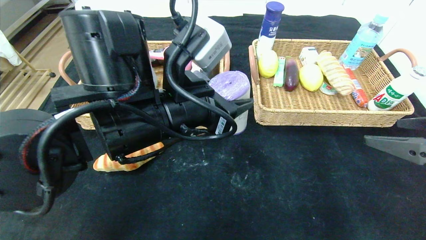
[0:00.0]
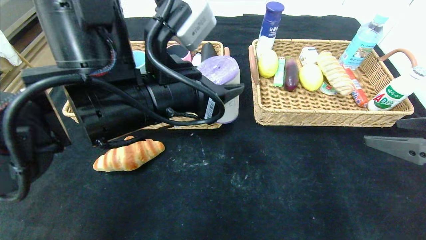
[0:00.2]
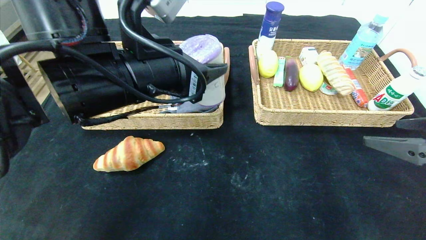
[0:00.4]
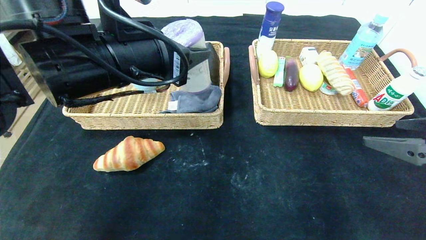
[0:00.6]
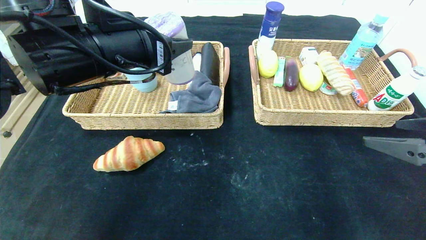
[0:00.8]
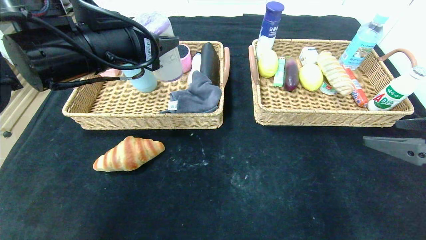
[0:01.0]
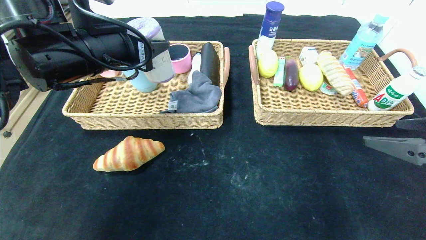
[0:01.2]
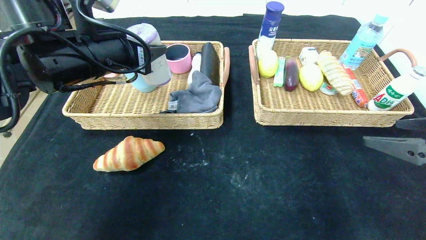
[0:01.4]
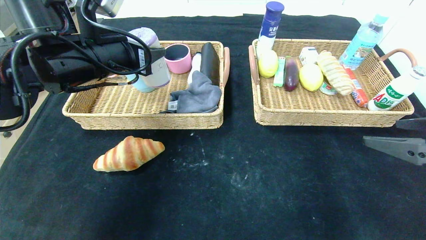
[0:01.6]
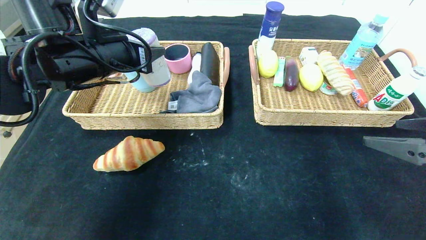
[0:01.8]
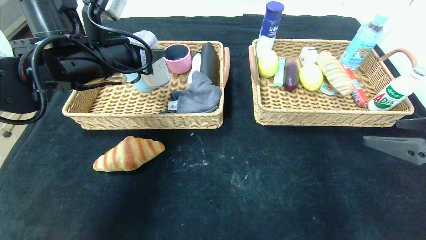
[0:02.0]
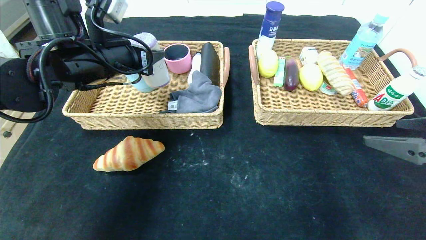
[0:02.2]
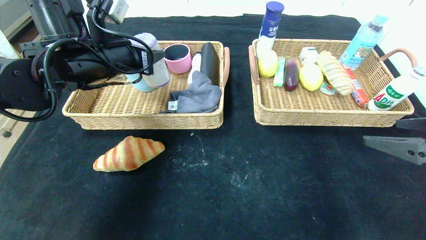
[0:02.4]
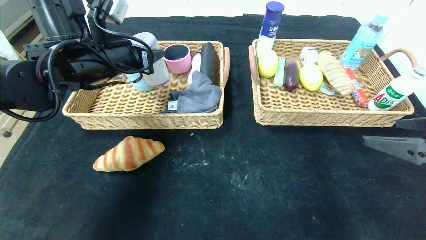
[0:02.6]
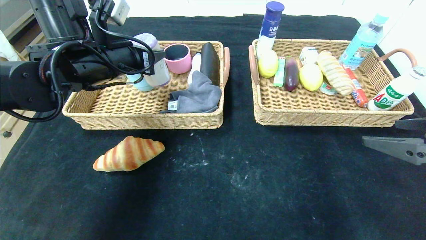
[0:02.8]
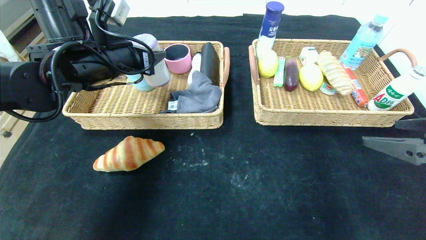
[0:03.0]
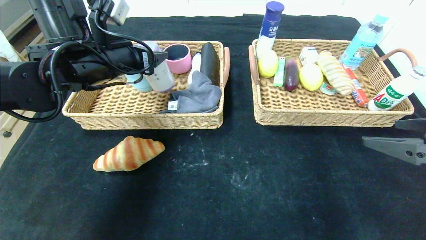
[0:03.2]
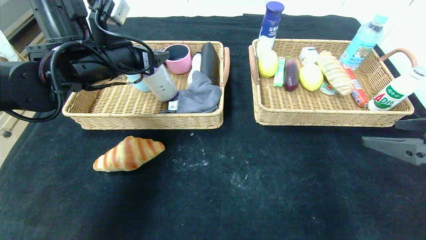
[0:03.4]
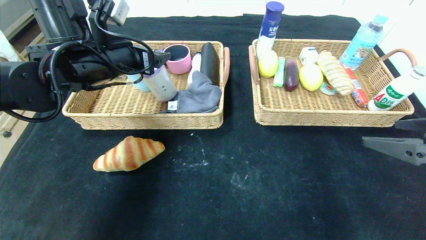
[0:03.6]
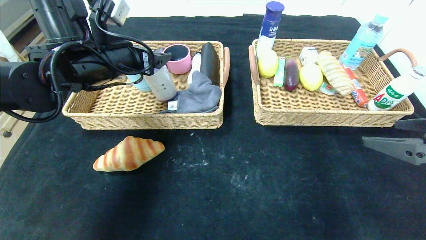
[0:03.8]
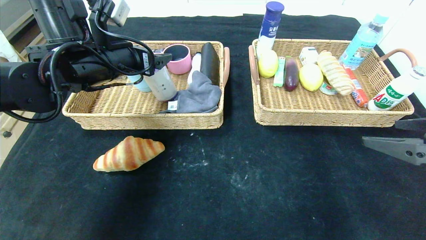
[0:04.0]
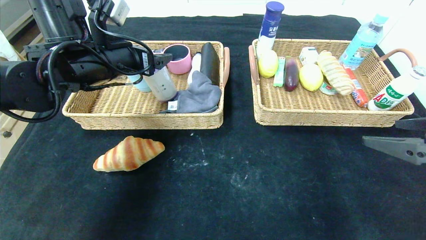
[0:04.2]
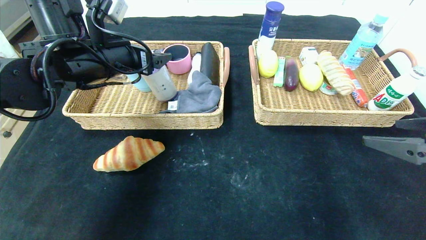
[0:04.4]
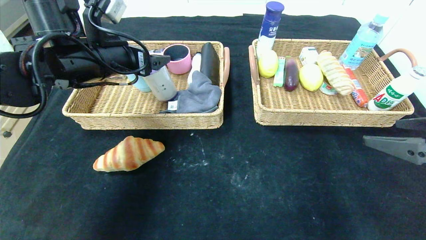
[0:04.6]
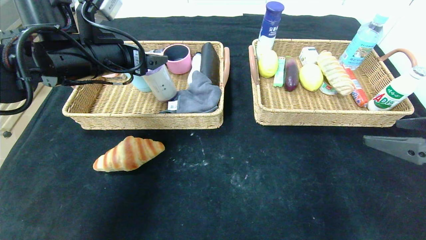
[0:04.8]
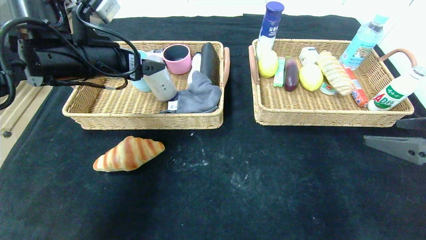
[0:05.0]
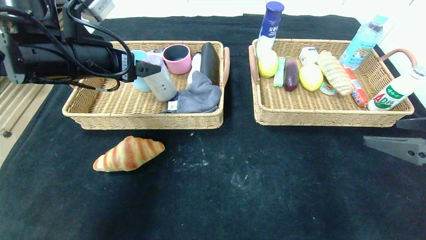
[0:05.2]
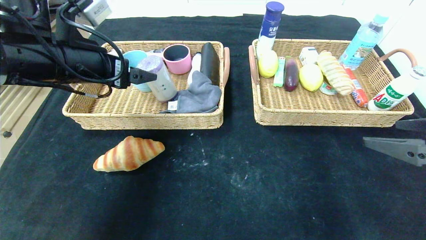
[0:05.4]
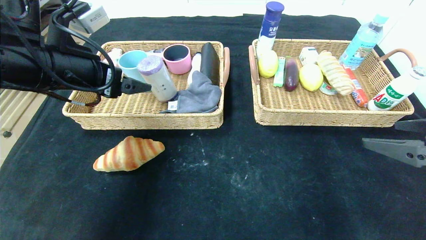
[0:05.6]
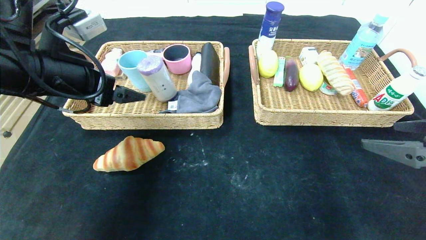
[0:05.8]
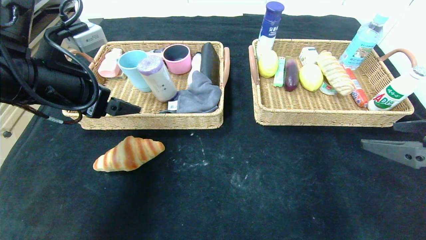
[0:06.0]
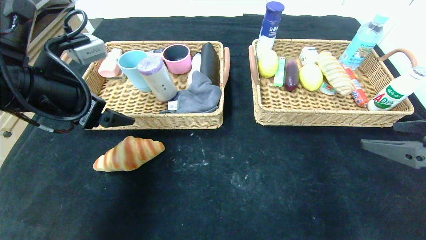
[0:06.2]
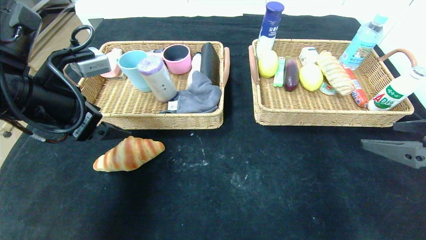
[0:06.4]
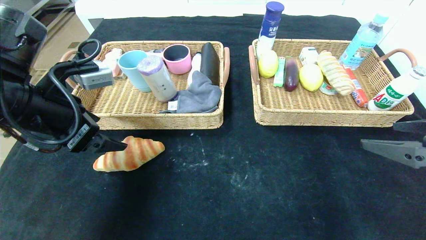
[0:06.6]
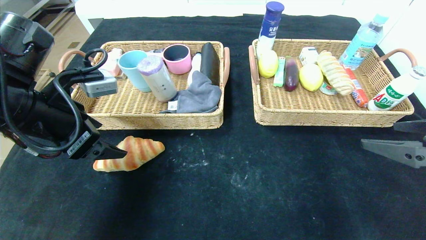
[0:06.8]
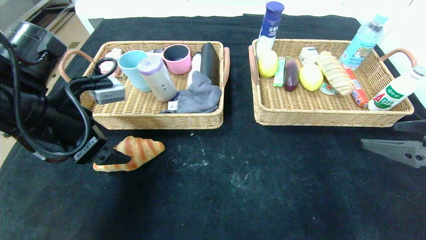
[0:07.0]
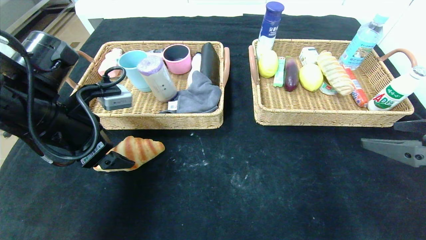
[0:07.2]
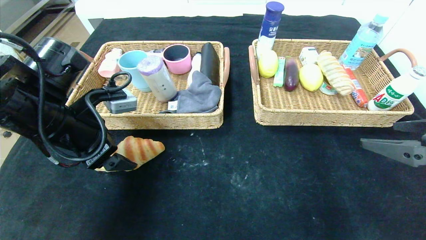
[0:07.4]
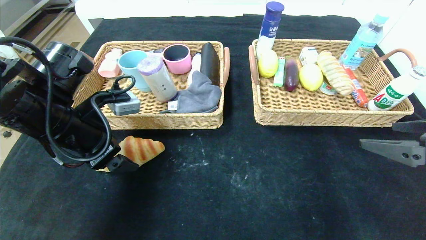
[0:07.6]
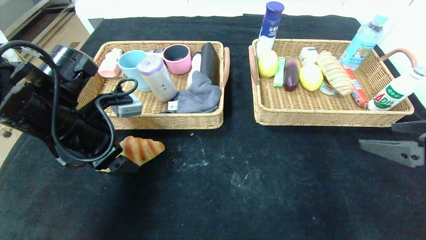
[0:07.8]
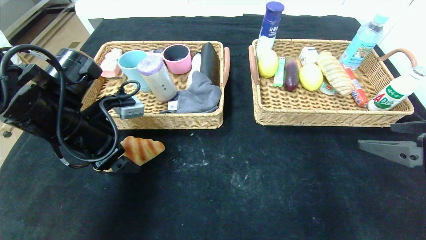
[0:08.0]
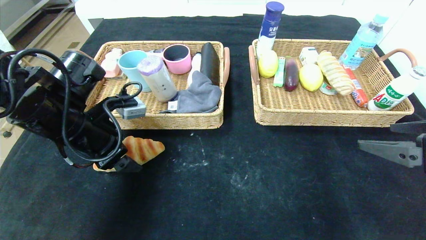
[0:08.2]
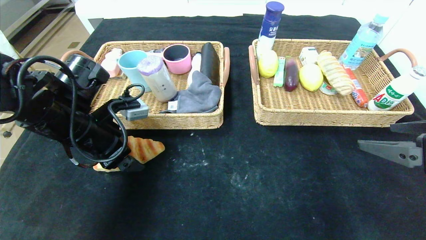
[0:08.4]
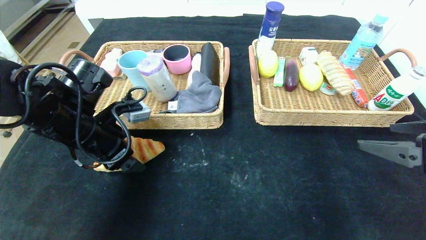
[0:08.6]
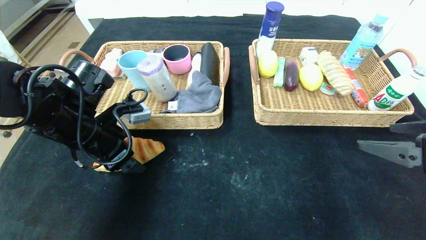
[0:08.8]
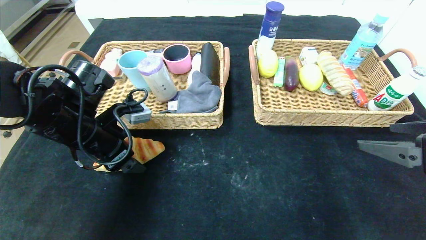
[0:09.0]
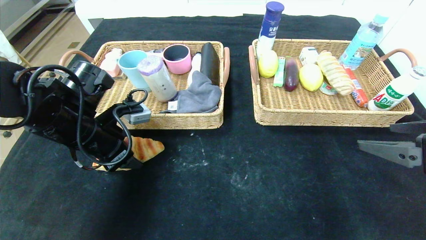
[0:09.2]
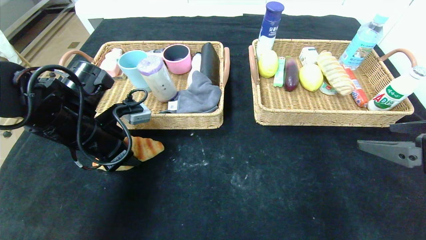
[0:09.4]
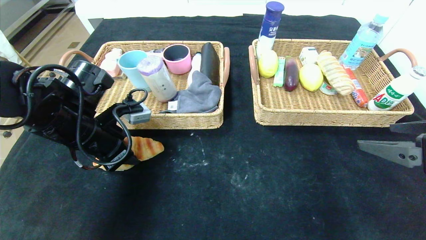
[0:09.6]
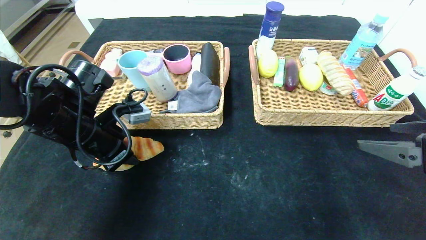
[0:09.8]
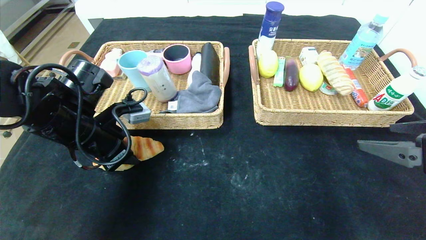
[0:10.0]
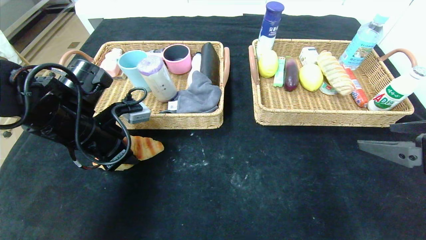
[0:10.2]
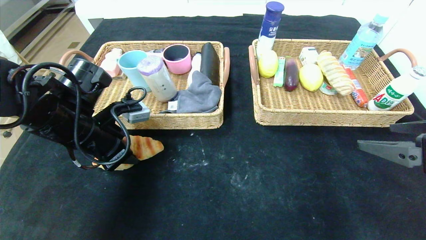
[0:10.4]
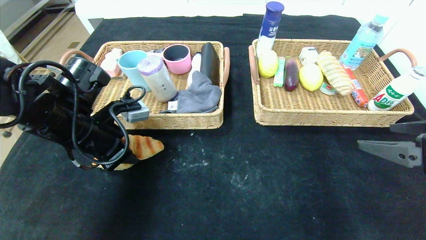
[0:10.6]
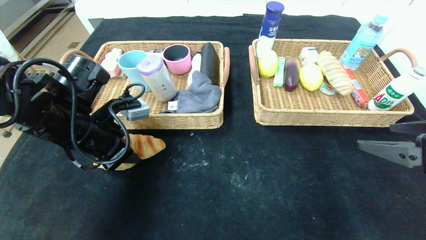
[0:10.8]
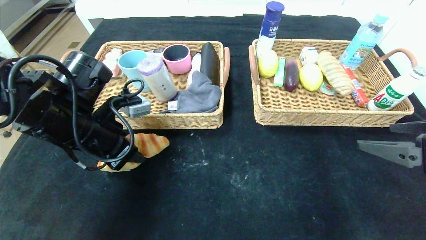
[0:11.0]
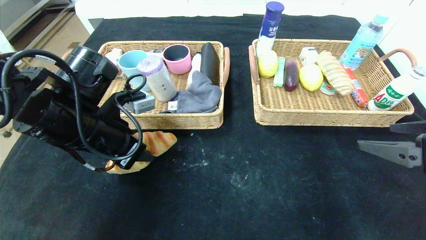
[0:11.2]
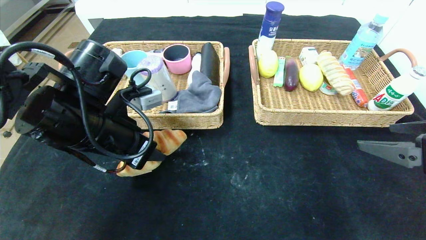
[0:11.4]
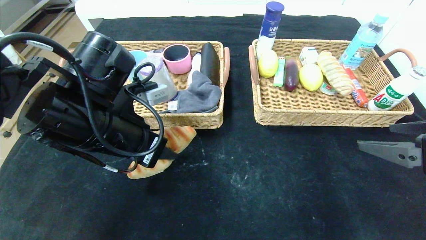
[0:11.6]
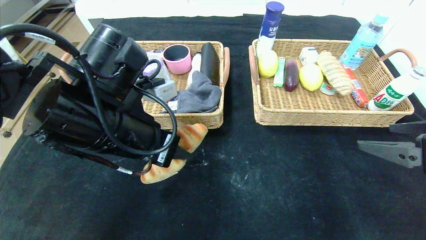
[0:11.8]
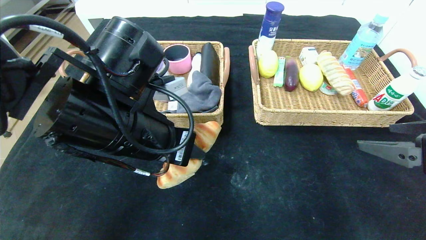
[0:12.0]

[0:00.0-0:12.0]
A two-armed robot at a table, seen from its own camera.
Step, 0:00.0 to 0:03.2: Grasp the purple garbage bag and put it in the left basket.
0:00.0 to 0:01.6: The left gripper is displaced to the left and forward by about 15 cm.
0:01.6 to 0:03.0: There are only small adjustments of the grippers.
0:03.0 to 0:04.4: The left gripper opens.
0:04.4 to 0:06.0: The left gripper moves backward, some 10 cm.
0:06.0 to 0:07.6: The left gripper travels downward by some 5 cm.
0:07.6 to 0:09.0: There are only small adjustments of the grippers.
0:09.0 to 0:10.4: The left gripper closes.
0:10.4 to 0:12.0: The left gripper shifts roughly 15 cm to the right and backward.

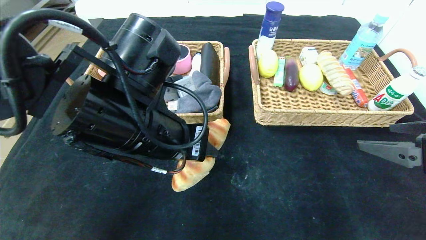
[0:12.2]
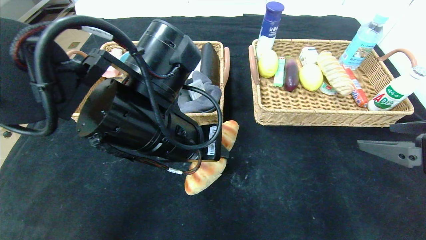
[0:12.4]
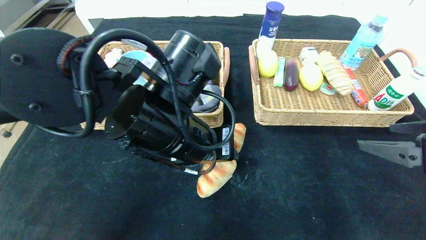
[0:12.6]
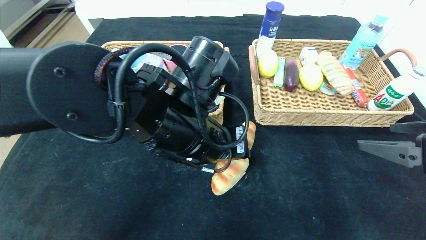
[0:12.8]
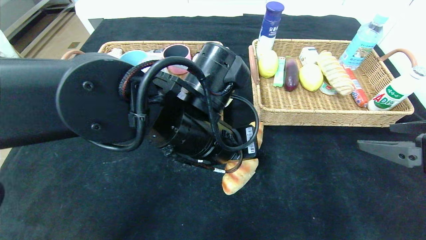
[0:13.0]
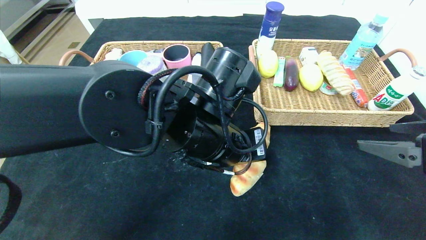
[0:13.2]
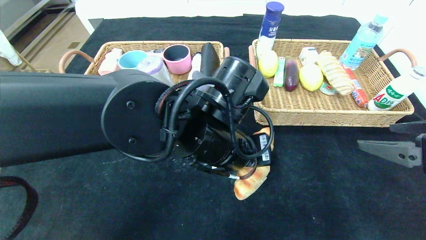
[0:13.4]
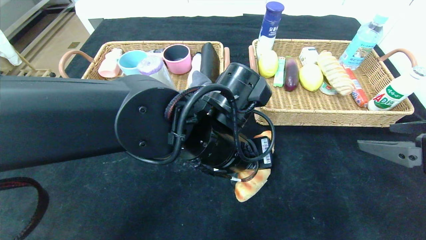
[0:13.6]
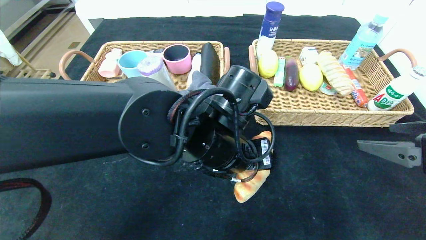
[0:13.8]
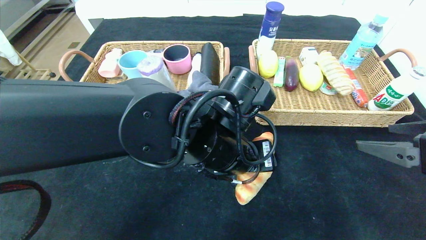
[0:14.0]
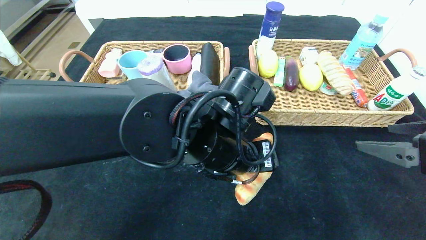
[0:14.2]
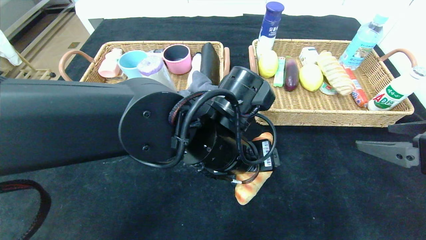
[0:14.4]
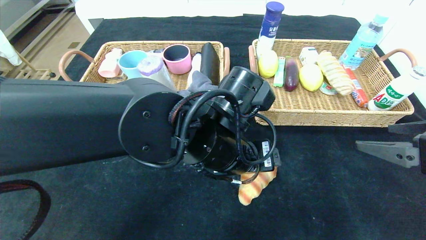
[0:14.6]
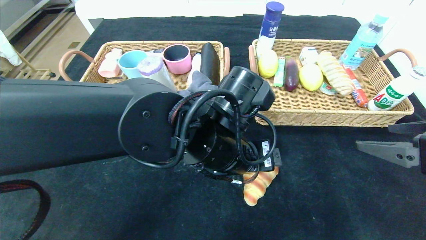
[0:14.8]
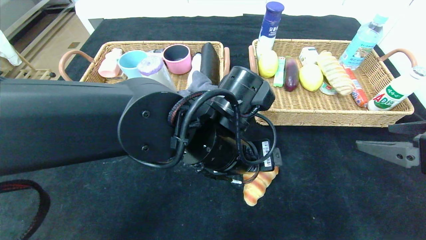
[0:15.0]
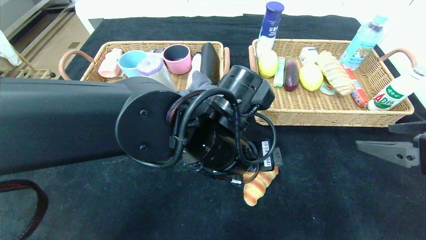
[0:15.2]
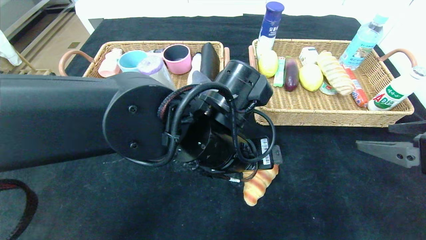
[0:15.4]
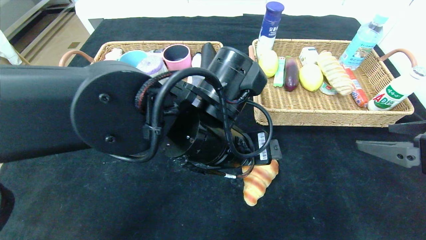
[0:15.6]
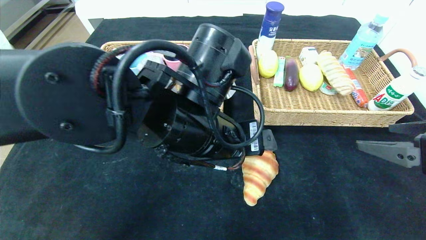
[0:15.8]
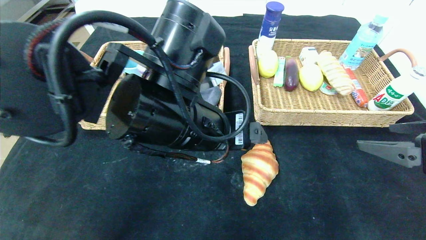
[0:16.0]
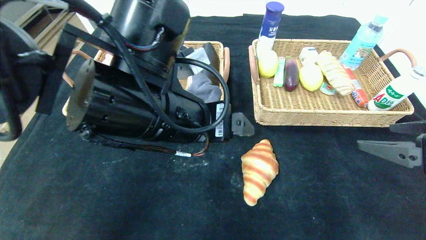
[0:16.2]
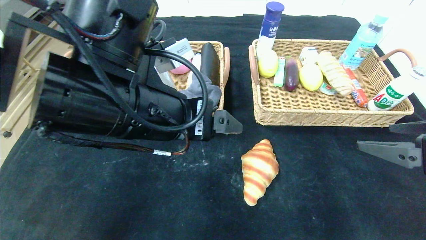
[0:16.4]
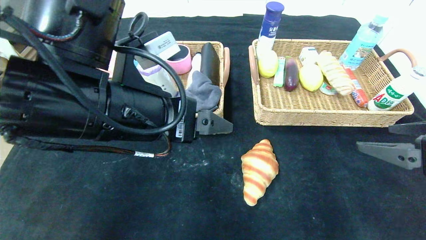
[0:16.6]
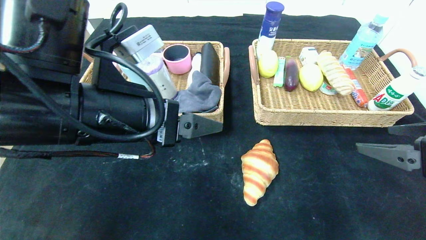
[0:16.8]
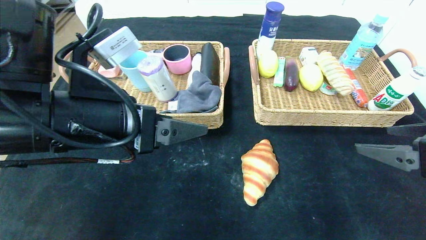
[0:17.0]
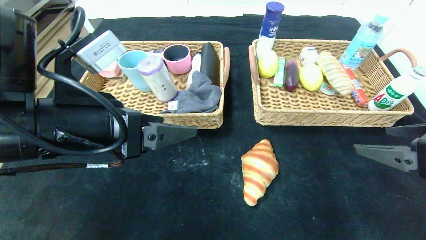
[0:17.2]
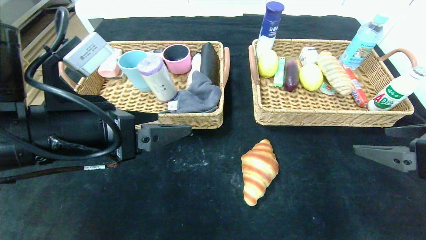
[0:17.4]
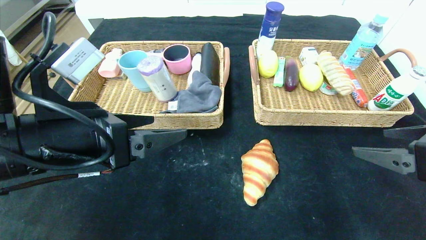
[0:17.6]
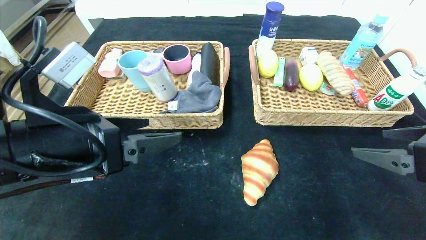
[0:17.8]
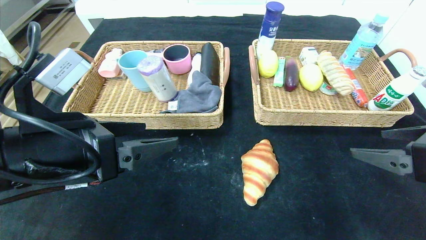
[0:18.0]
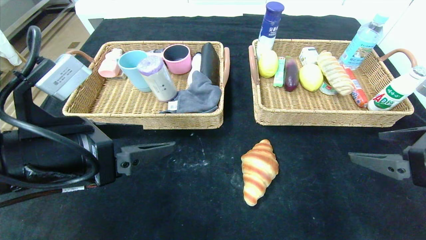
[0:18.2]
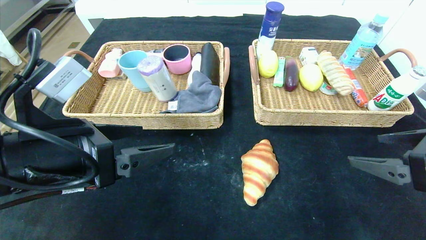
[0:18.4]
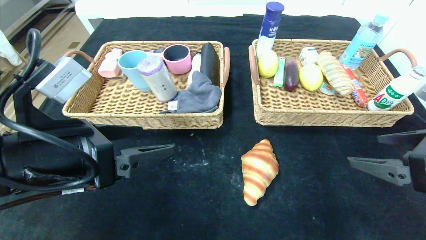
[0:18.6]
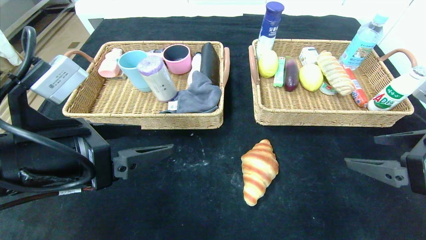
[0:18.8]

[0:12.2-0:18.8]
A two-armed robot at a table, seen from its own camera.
Step, 0:12.2 to 0:15.2: Place the croissant in the center of the table.
0:12.2 to 0:13.8: The left gripper heads to the right, covering about 10 cm.
0:13.8 to 0:15.4: The left gripper opens its fingers.
0:15.4 to 0:17.2: The left gripper goes approximately 15 cm to the left.
0:17.2 to 0:18.8: The grippers stay close to where they were, moving slightly.
